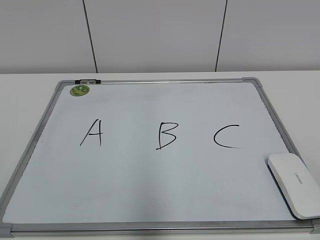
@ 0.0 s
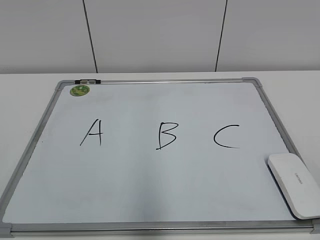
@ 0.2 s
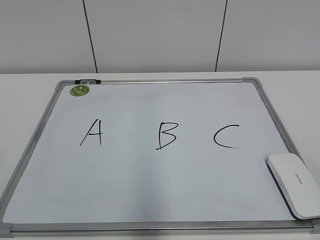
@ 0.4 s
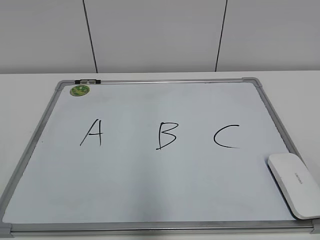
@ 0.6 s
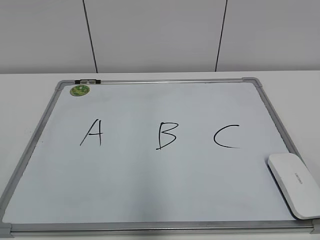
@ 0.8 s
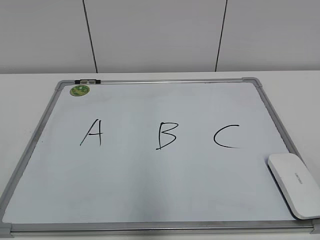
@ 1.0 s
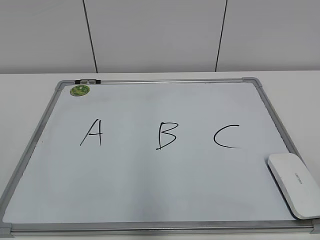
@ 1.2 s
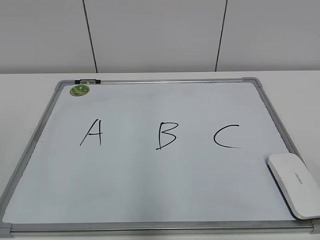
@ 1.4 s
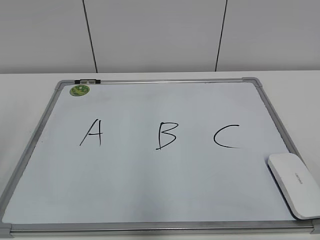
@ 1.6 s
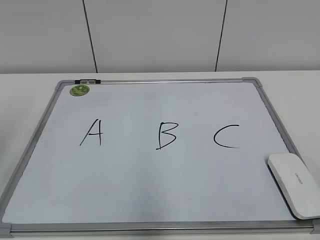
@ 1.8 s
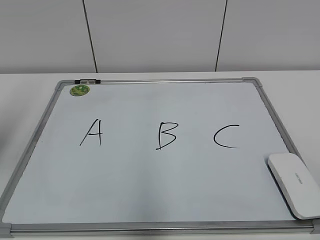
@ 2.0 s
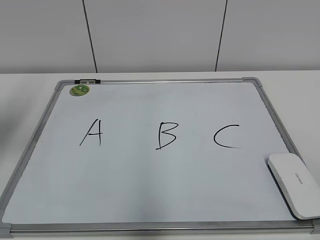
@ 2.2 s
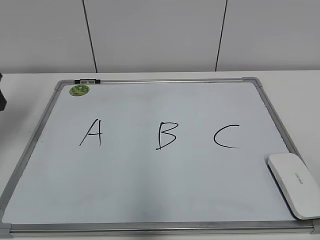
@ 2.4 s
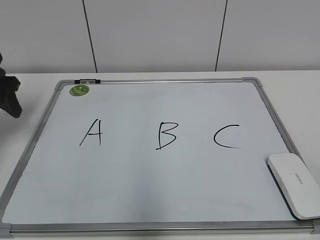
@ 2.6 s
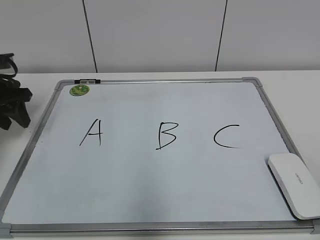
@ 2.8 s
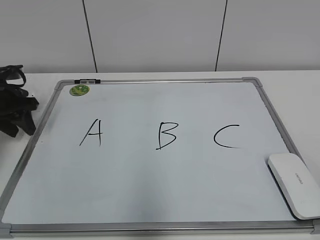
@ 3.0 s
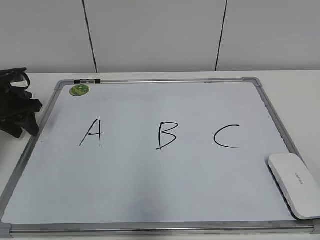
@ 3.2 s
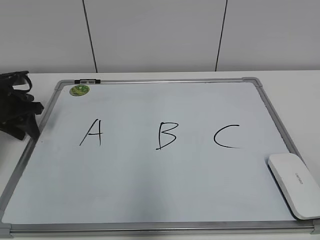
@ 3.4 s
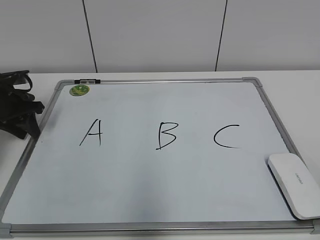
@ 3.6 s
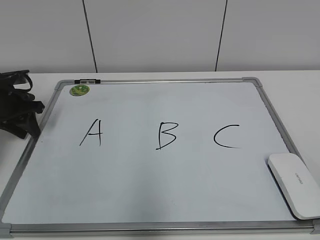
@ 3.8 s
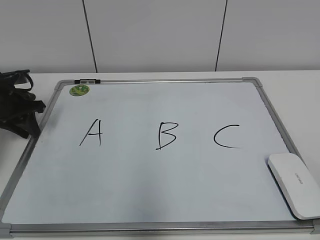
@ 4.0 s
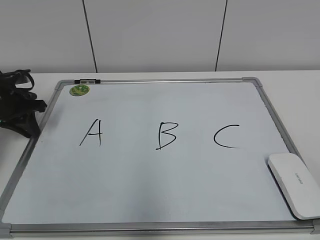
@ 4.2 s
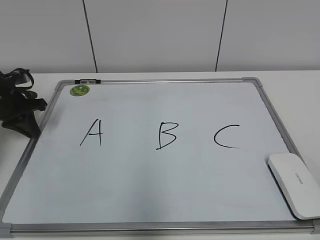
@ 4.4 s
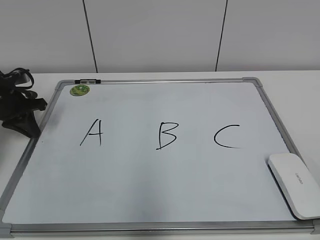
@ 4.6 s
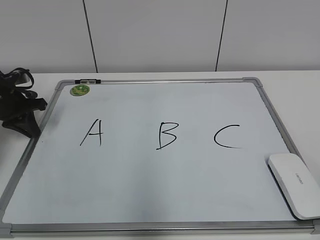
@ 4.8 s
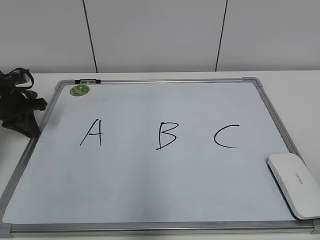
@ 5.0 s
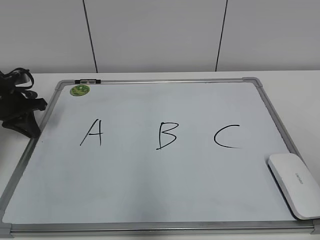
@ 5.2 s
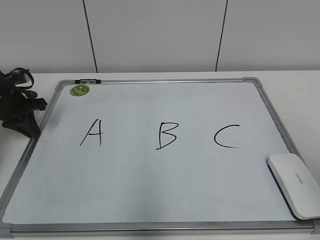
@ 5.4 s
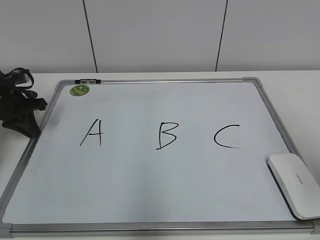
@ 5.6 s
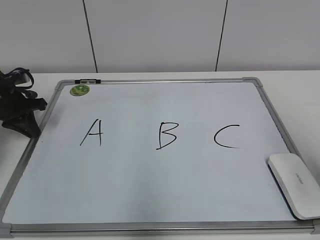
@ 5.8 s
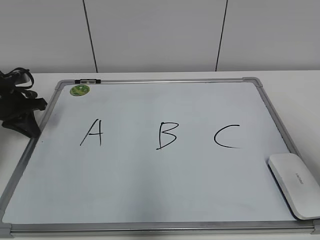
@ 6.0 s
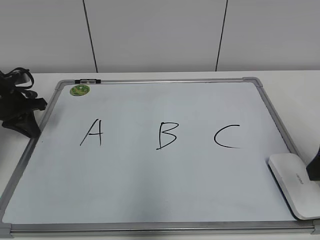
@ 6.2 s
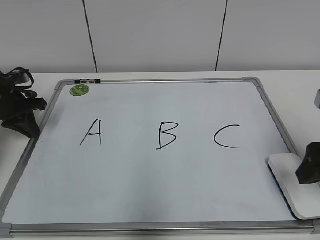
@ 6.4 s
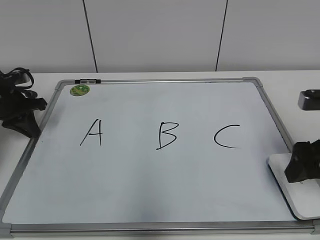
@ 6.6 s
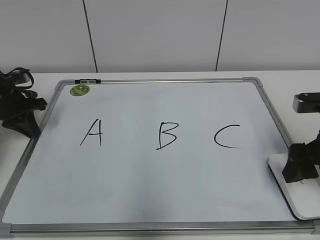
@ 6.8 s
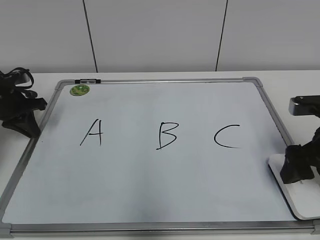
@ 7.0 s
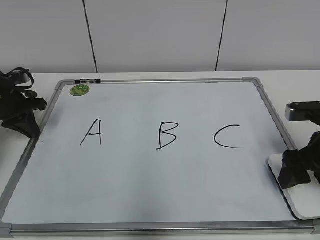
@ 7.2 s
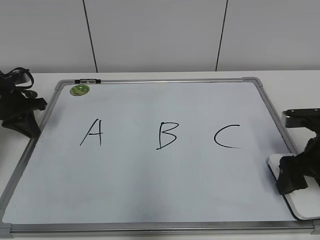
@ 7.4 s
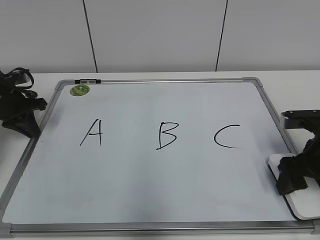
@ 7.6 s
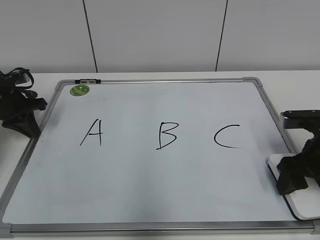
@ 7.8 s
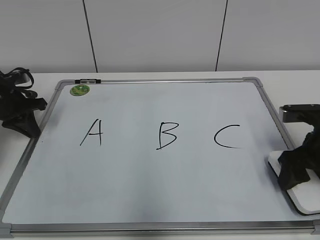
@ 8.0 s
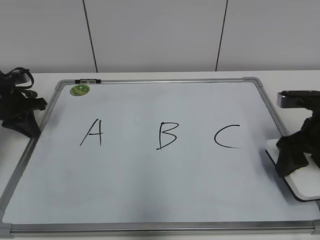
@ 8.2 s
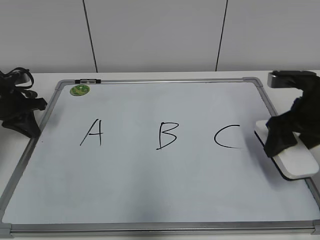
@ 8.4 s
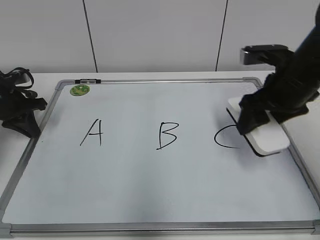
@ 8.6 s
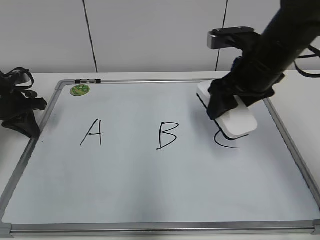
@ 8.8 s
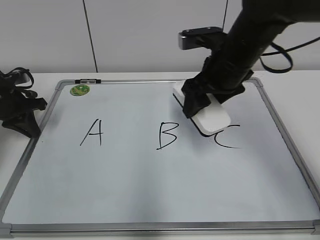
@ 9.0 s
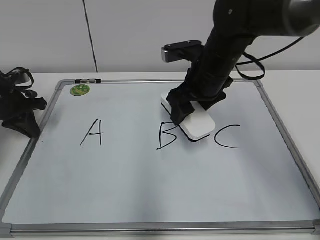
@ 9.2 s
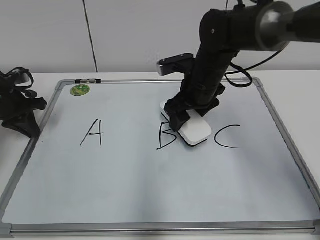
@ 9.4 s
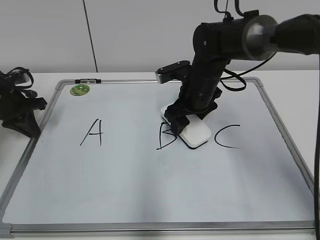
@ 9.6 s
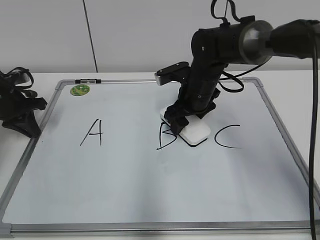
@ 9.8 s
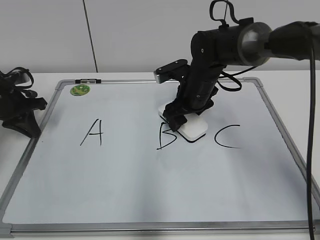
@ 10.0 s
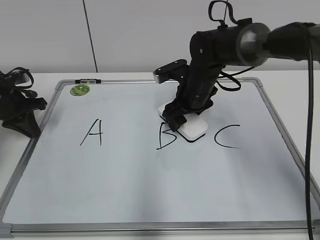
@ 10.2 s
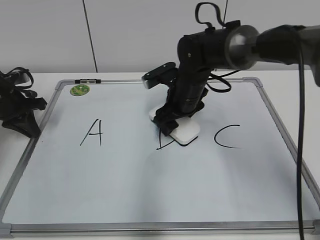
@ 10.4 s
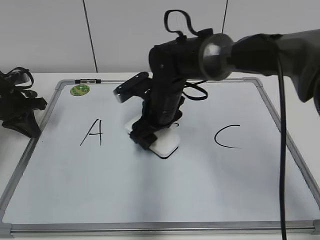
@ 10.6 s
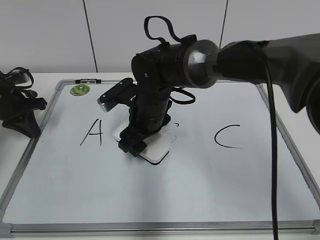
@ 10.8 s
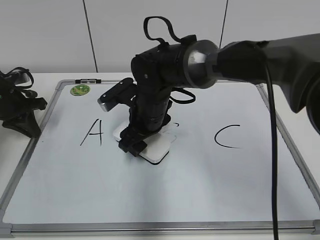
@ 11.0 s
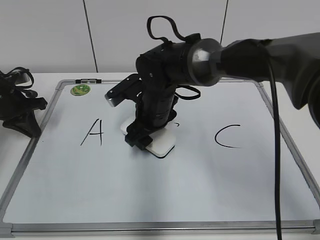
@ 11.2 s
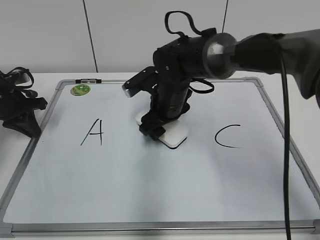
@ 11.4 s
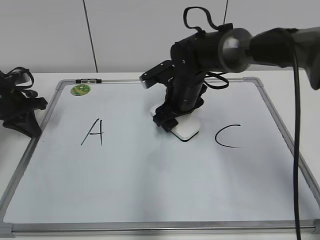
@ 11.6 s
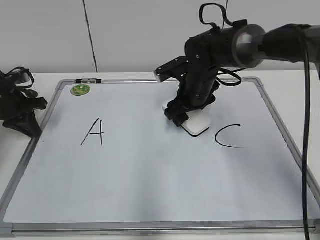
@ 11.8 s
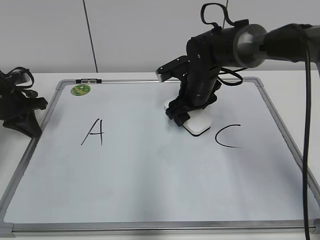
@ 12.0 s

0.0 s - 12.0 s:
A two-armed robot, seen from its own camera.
Task of the whole recording: pick up the eraser on the blackboard and erase the letter "B".
Step, 0.0 s - 5.4 s: Hold the drawing board steady with your left hand.
Step, 5.6 s - 7.8 s: Grab the eraser with your right hand.
Step, 8.0 s - 12.0 s: Erase the letter B with your right hand.
1.6 s - 3.0 s: The left gripper is displaced forward and downward by roughly 35 cm, and closes up.
3.0 s - 4.4 s: The left gripper closes up.
4.4 s - 6.0 s: The right gripper travels forward by about 20 cm, and opens up.
6.0 s - 7.6 s: The right gripper goes about 15 cm downward and forward, and closes.
7.6 s - 9.0 s: The right gripper moves to the left, upward and forward, approximately 20 cm, and closes up.
9.0 s - 10.4 s: The right gripper shifts roughly 15 cm downward, forward and to the left.
10.4 s - 12.0 s: The right gripper travels to the left and back again, approximately 10 cm each way.

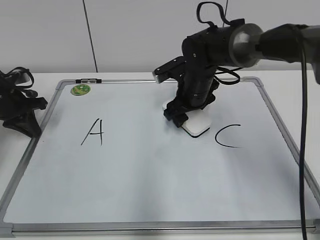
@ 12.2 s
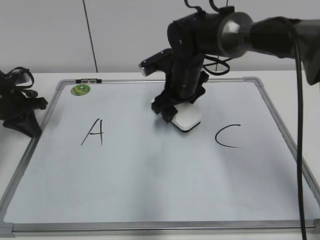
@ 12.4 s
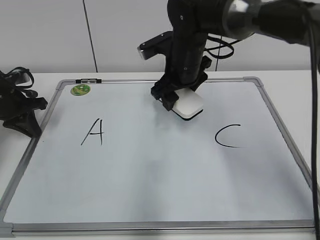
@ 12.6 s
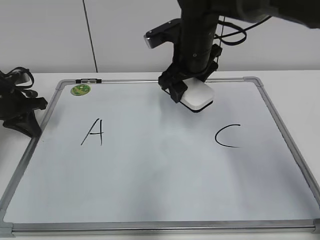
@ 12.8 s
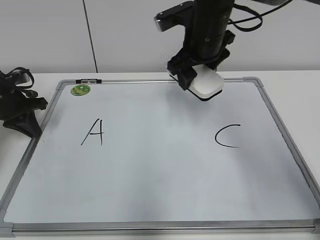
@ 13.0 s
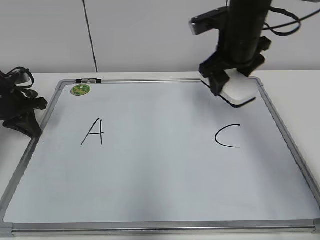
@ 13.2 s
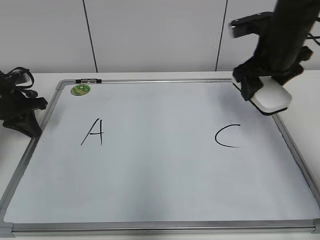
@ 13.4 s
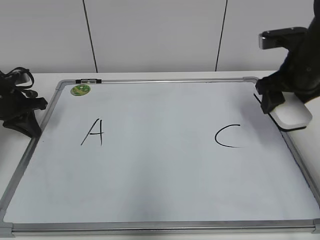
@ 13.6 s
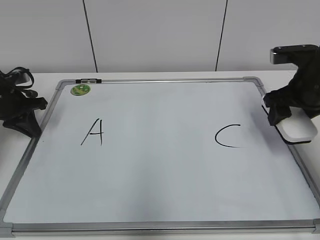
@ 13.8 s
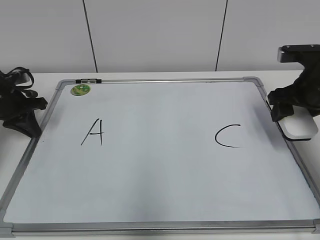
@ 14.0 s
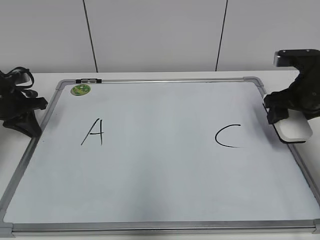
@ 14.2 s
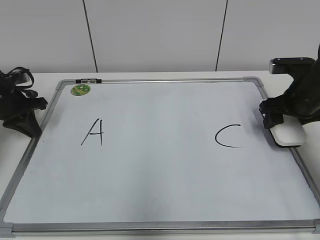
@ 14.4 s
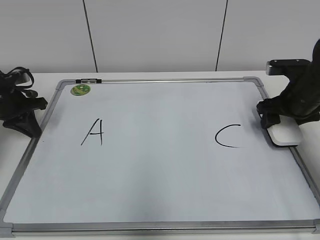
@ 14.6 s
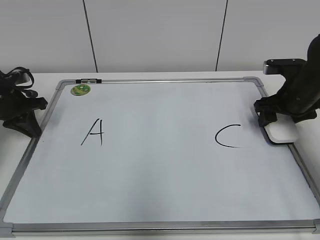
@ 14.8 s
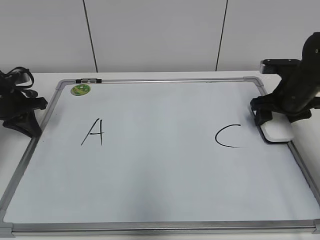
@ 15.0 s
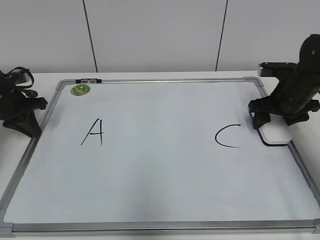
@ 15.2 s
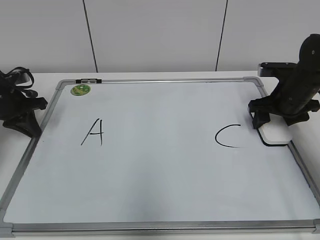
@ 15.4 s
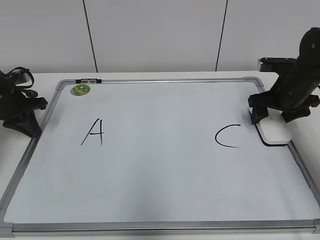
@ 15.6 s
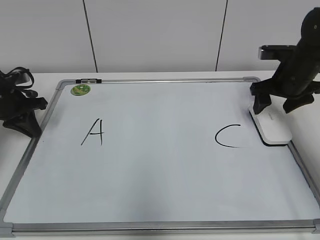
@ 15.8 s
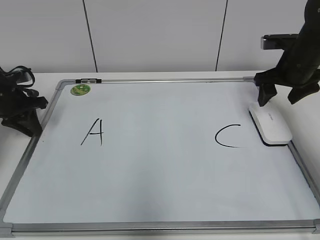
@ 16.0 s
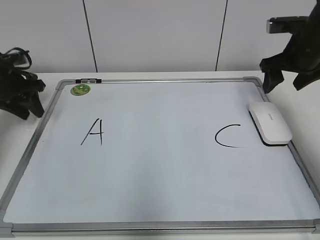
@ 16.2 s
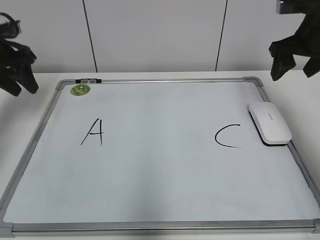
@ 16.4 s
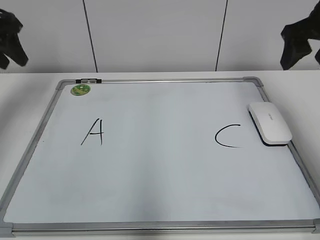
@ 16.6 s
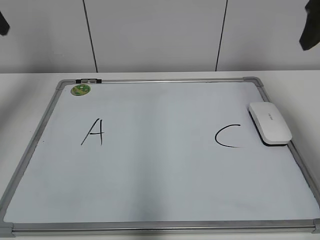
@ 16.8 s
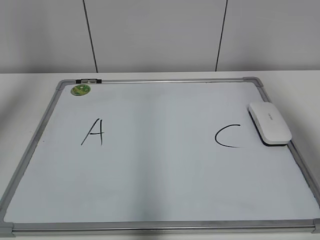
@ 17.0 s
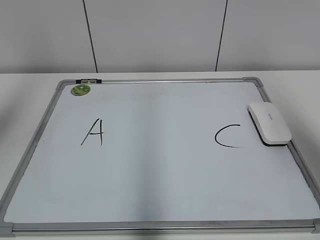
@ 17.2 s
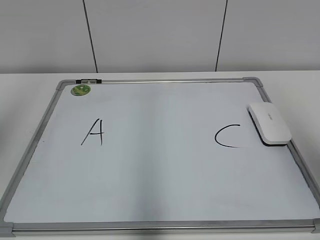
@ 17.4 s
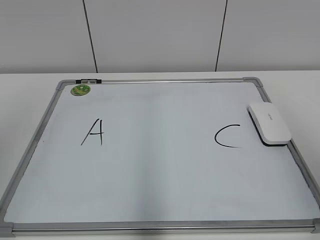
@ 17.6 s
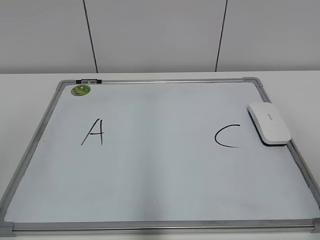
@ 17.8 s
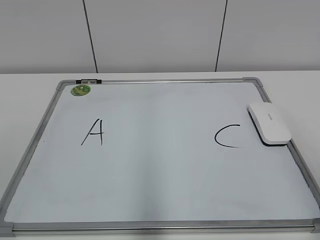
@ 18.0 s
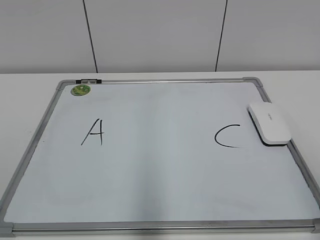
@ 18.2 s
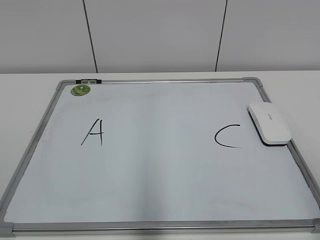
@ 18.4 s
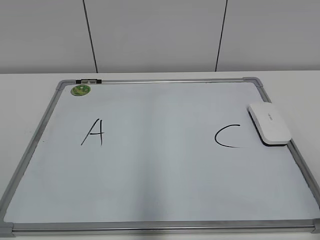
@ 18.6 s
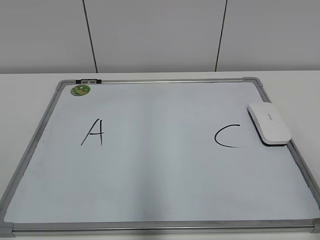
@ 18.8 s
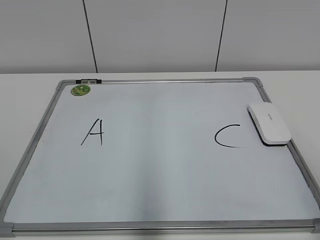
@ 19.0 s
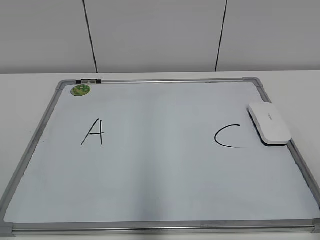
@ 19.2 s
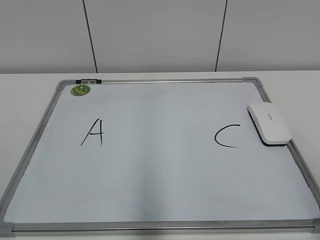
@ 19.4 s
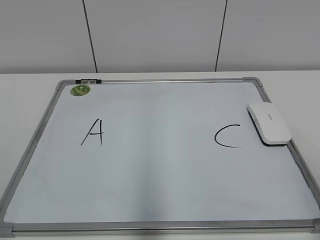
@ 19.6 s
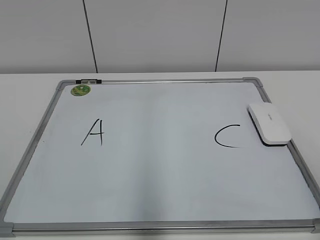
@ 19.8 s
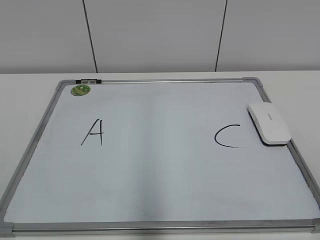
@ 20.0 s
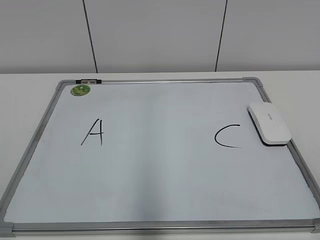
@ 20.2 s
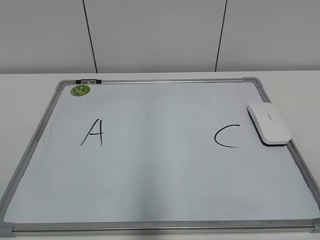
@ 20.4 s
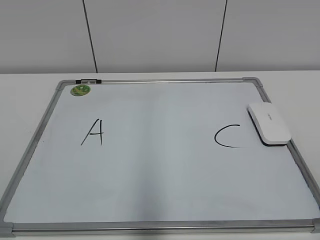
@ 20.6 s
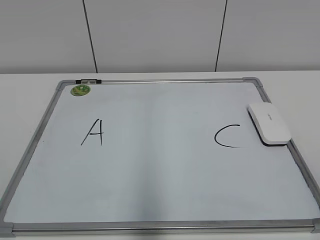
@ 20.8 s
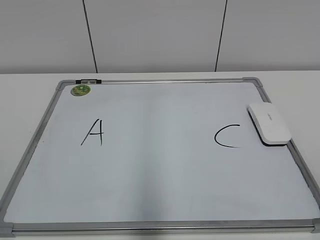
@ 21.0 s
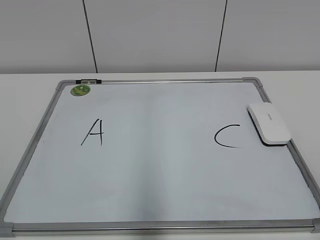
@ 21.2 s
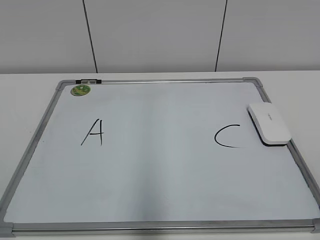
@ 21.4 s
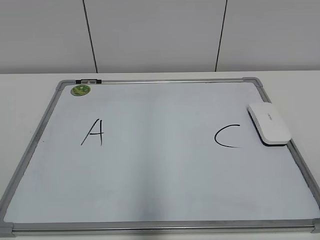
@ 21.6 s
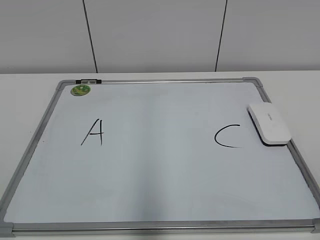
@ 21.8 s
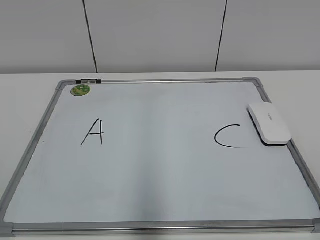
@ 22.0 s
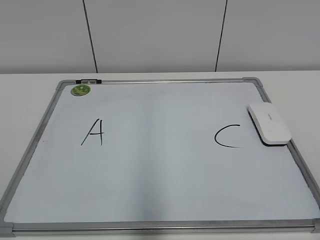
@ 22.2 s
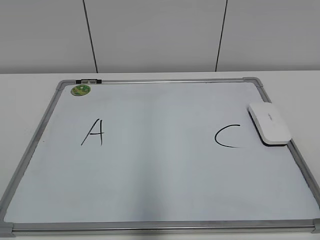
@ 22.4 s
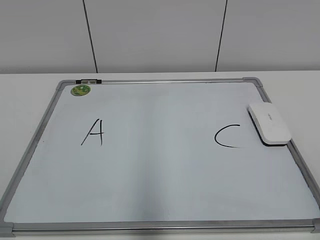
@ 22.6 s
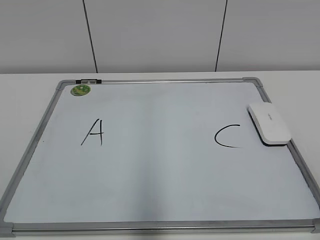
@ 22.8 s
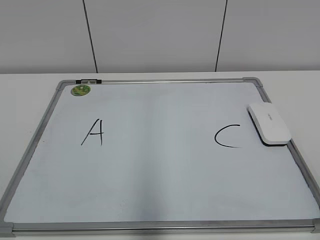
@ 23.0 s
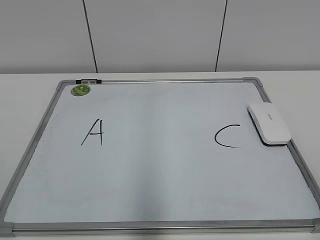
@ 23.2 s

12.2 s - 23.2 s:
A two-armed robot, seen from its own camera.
Task of the whole recording: pick up the eraser on the blackboard and erase the letter "B".
Step, 12.2 s - 15.2 s: Put down the eraser with your right hand.
12.2 s - 13.8 s: The right gripper shifts about 20 cm to the right and backward.
13.8 s - 15.4 s: The right gripper heads downward and forward, covering approximately 10 cm.
15.4 s - 17.0 s: The left gripper heads upward, covering roughly 30 cm, and opens up; the right gripper is displaced upward and backward by about 30 cm.
17.0 s - 18.4 s: The two grippers go about 30 cm backward and downward.
21.6 s - 23.2 s: Neither gripper changes place.
